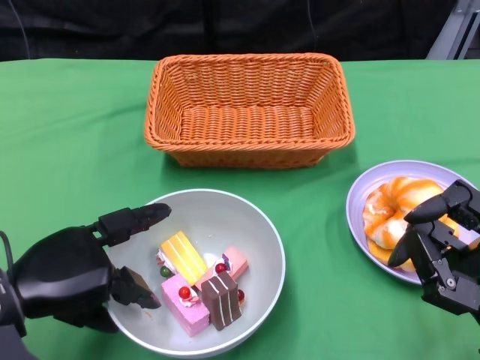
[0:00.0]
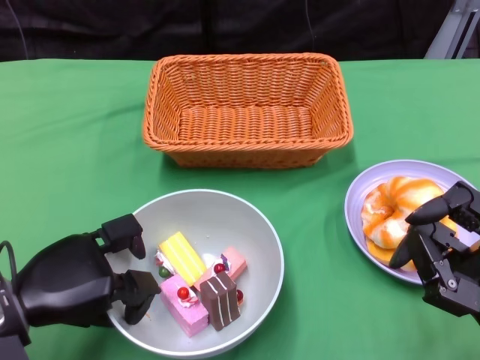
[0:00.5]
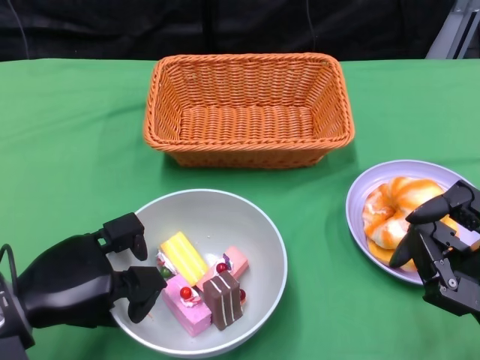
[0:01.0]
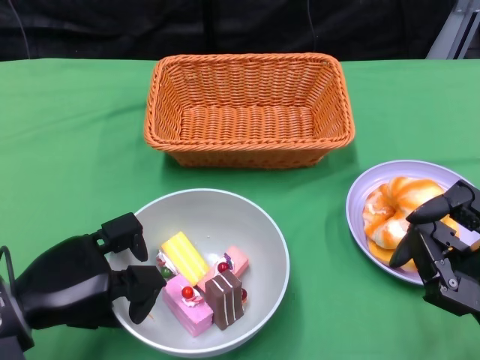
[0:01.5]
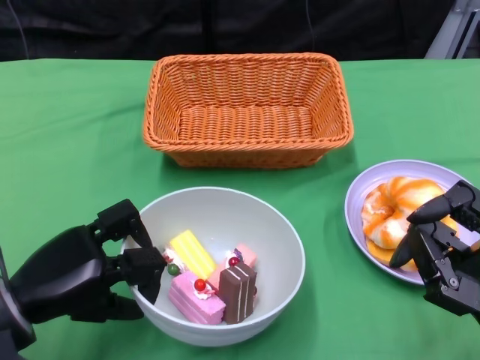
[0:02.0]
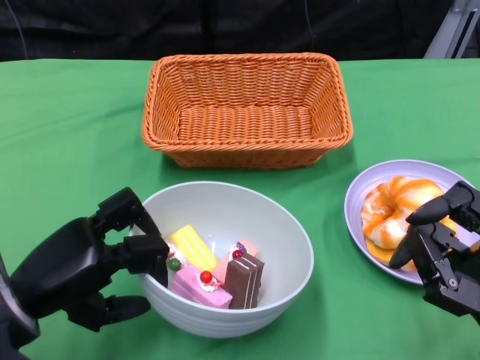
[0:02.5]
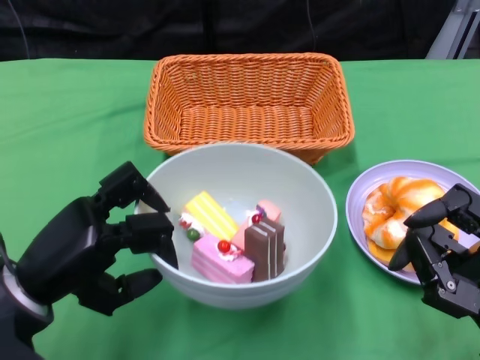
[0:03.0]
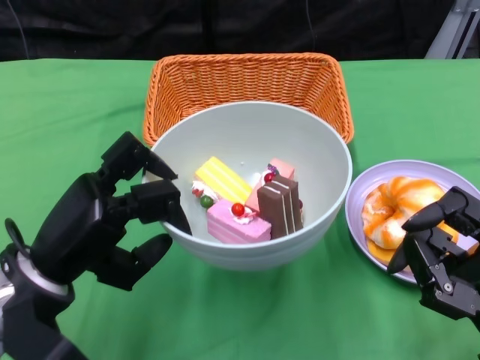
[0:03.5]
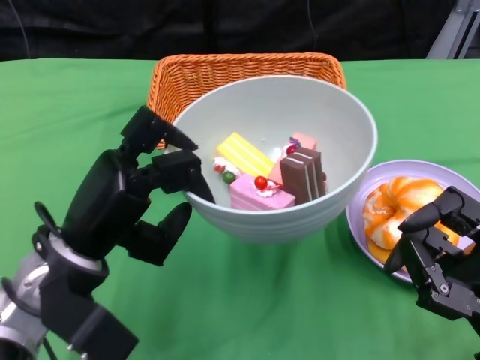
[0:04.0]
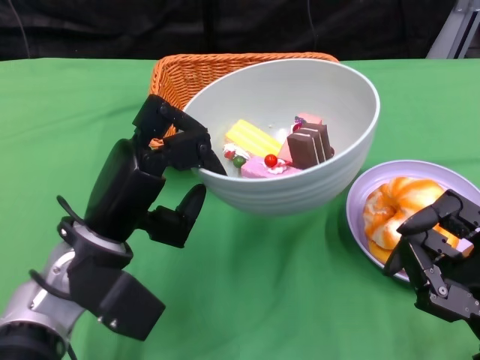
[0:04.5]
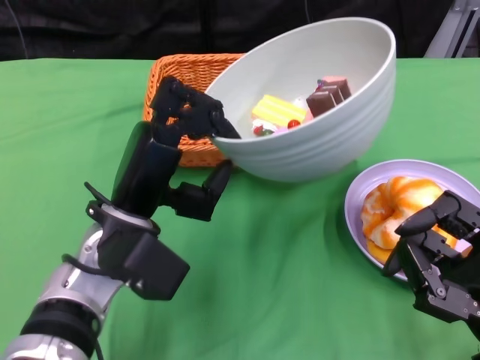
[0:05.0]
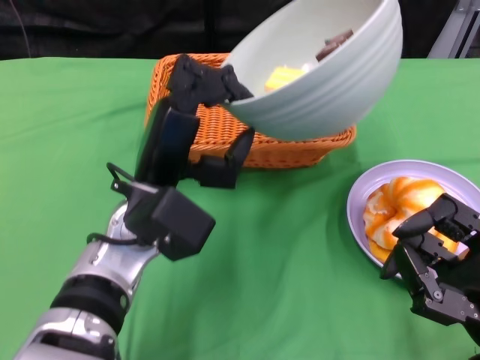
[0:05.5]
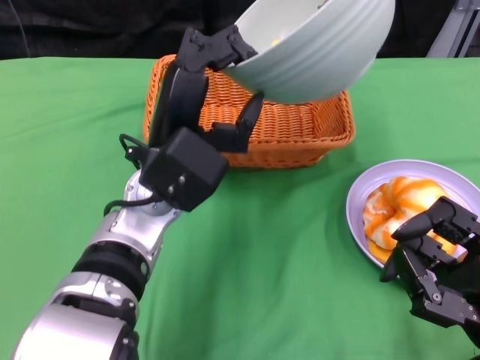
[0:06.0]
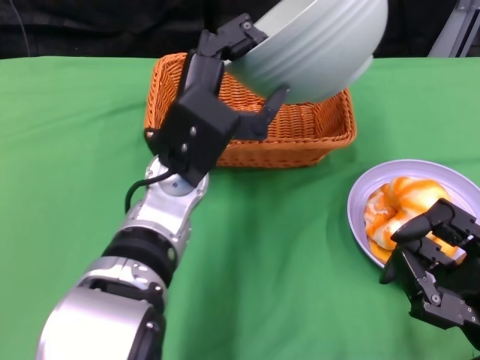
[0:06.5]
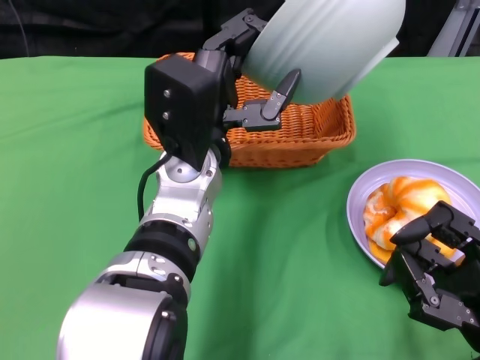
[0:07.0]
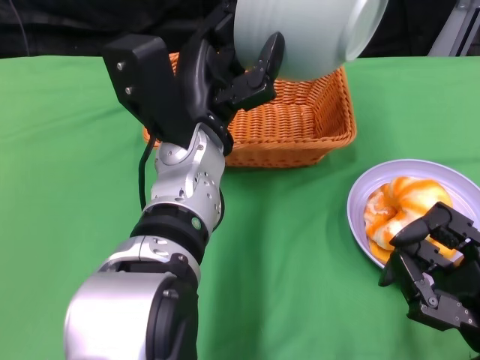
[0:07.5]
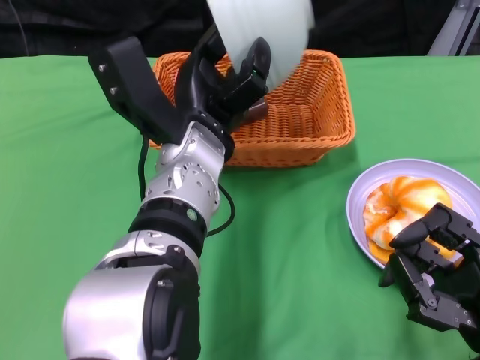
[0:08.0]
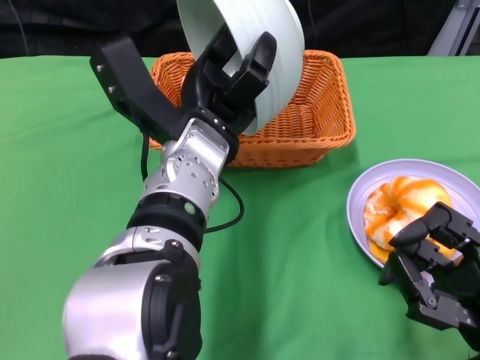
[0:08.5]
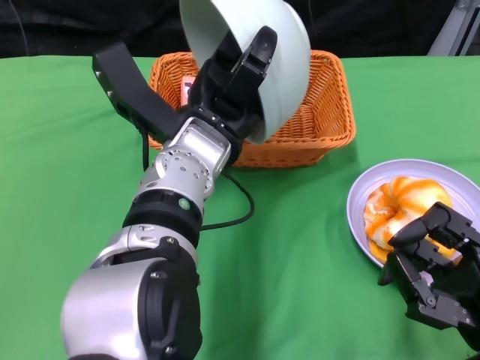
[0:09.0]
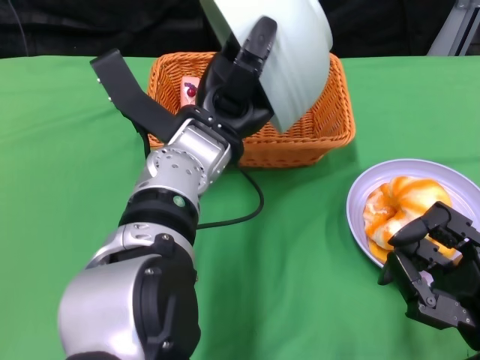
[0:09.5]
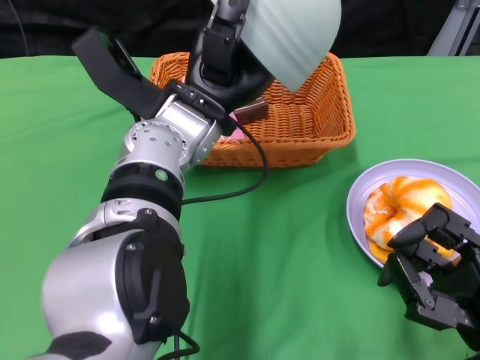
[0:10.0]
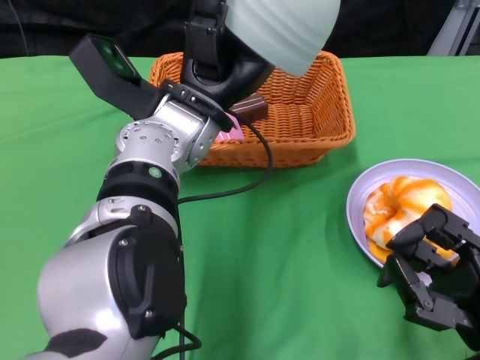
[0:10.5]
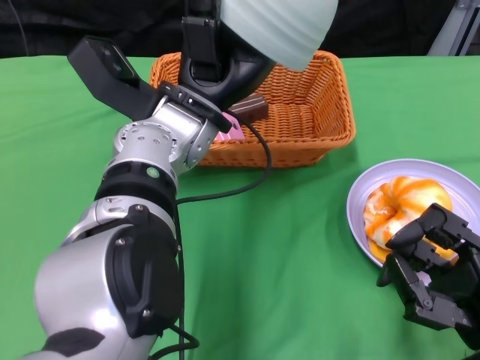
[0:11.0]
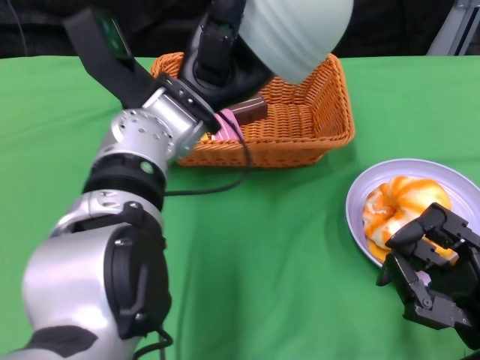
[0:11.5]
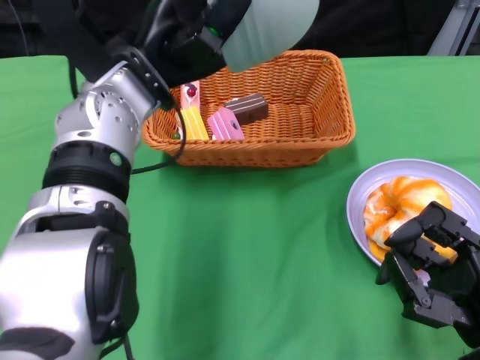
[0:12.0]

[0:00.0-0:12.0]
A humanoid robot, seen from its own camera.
Step, 0:01.0 to 0:11.5: Pour the cake into the basket with the left gripper.
0:00.0 to 0:02.0: The hands stay close to where they were, moving slightly.
0:02.0 to 0:04.0: The left hand shifts about 5 cm to the right.
0:04.0 to 0:06.0: The left hand goes about 10 cm to the right and forward.
0:10.0 to 0:12.0: The left hand moves to the left, roughly 5 cm.

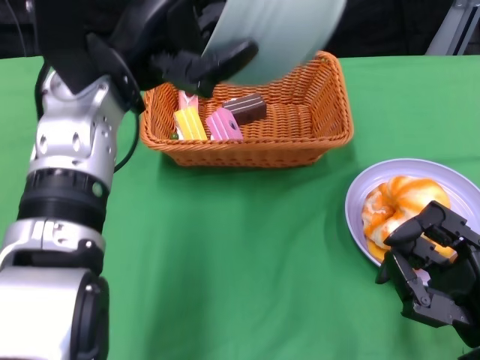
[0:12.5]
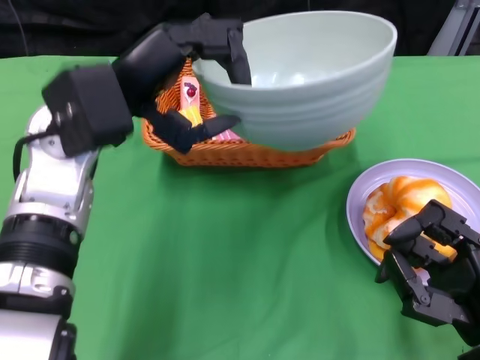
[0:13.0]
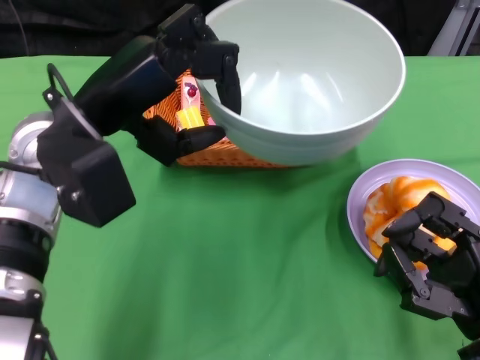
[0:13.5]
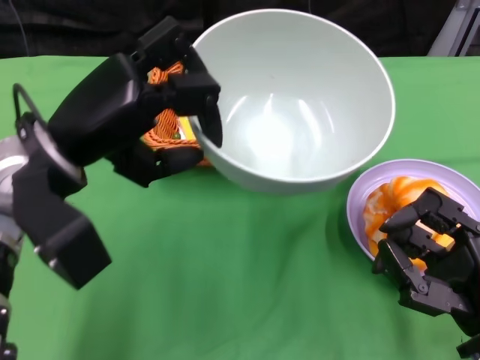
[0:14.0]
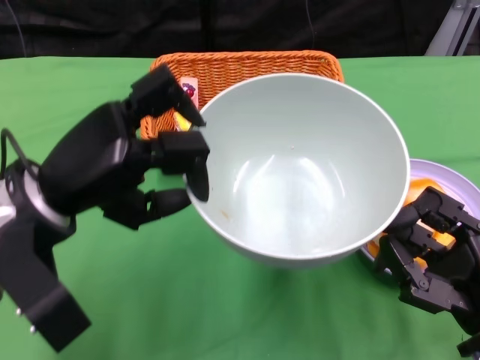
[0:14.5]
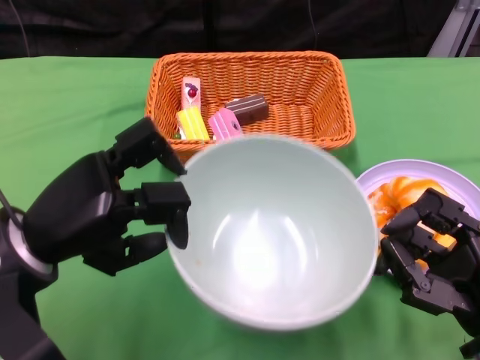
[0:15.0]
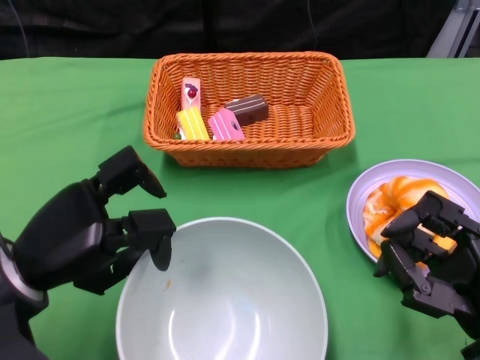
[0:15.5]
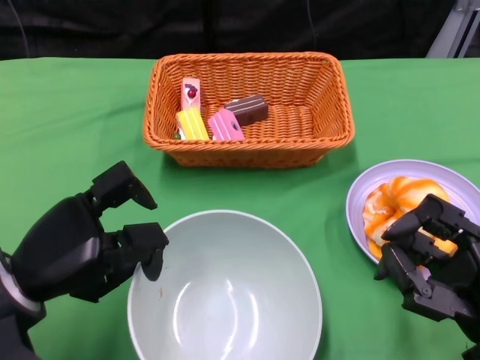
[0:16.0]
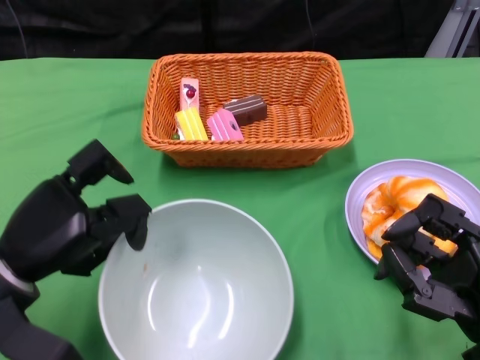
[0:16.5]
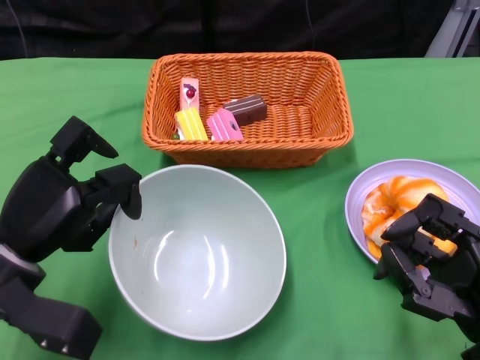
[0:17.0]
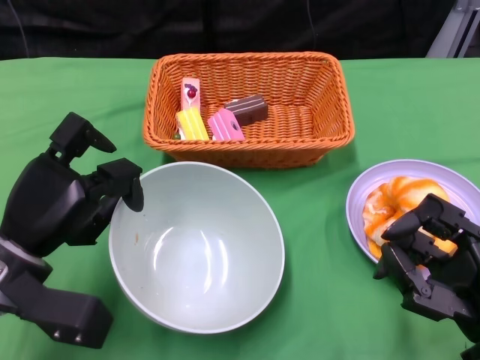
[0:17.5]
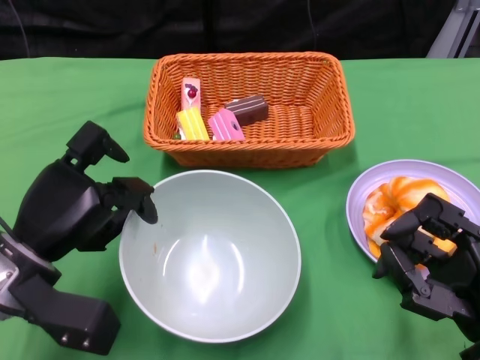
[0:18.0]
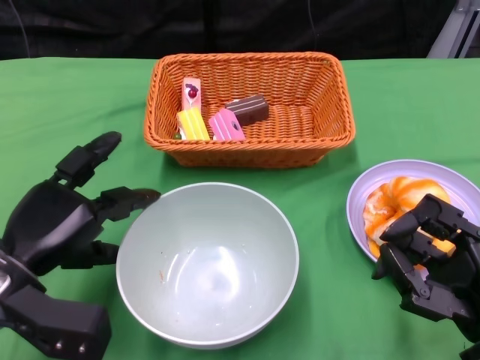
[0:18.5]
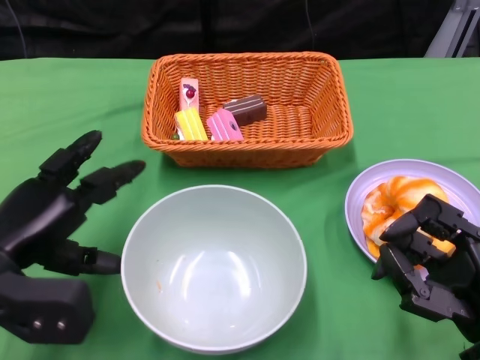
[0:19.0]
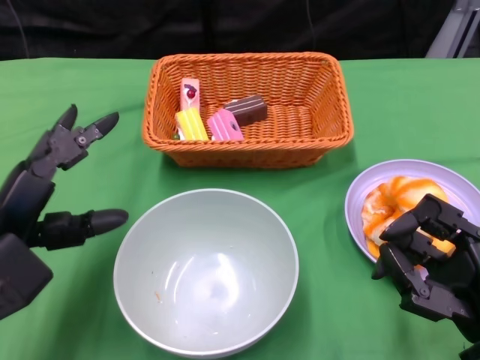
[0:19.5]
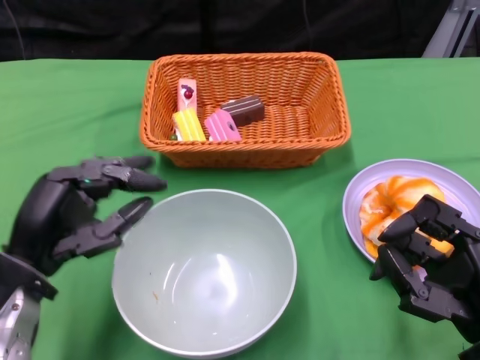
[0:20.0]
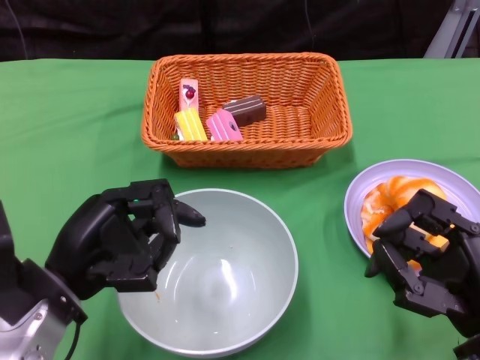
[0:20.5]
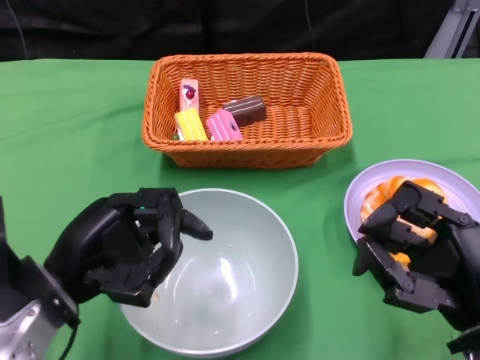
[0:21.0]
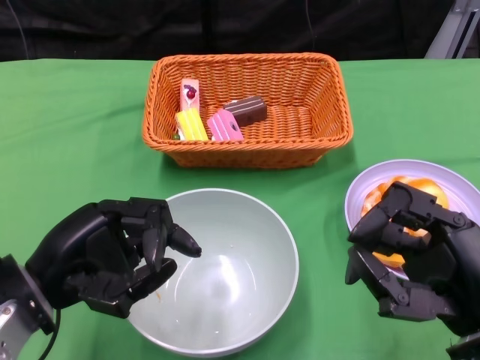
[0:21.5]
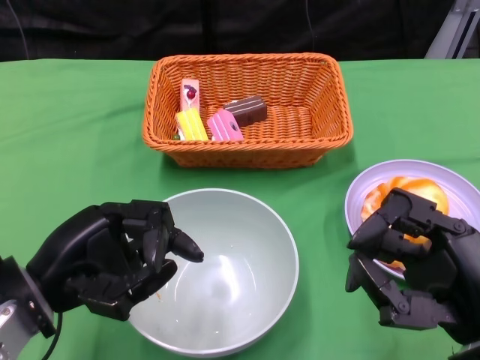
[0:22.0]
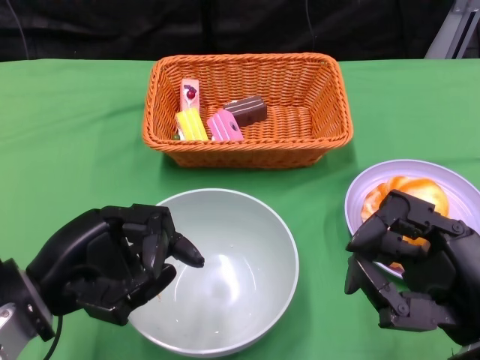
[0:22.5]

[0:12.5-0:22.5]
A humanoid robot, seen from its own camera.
Step, 0:12.5 to 0:18.0: Place the bowl on the table with the left gripper.
0:12.5 to 0:14.5: The left hand travels backward, to the left and downward by roughly 10 cm.
0:14.5 to 0:16.5: The left hand is displaced downward by approximately 10 cm.
0:18.5 to 0:20.5: The left hand shifts by roughly 5 cm.
0:20.5 to 0:22.5: The hands stay close to where they were, moving slightly.

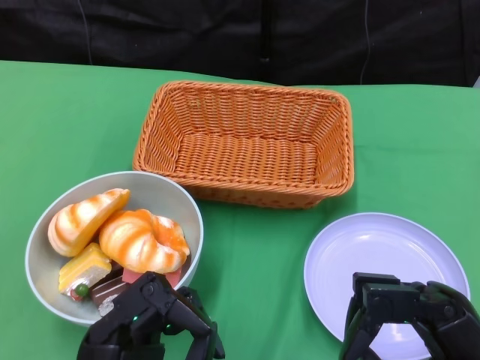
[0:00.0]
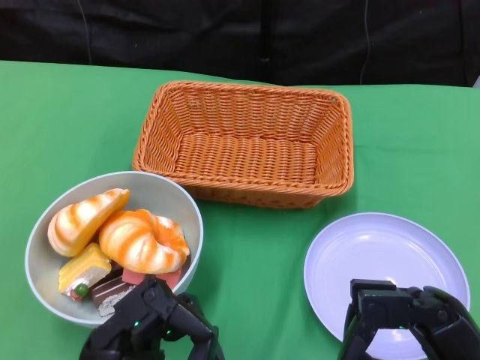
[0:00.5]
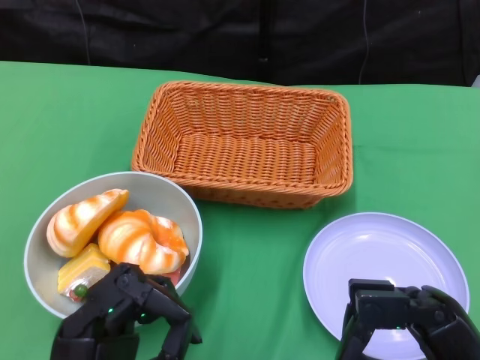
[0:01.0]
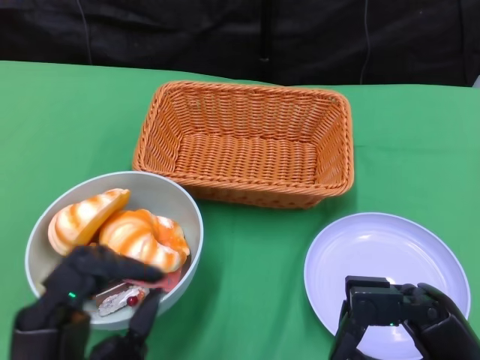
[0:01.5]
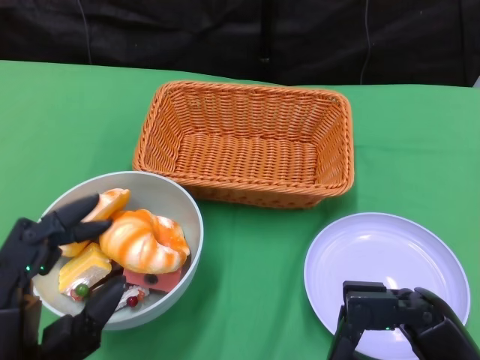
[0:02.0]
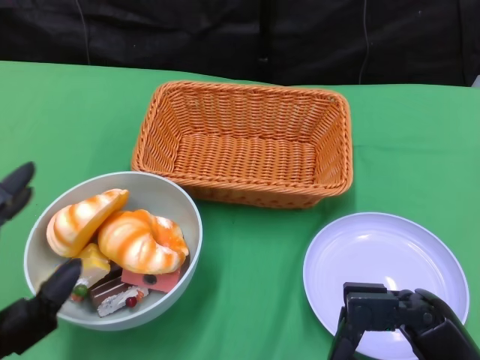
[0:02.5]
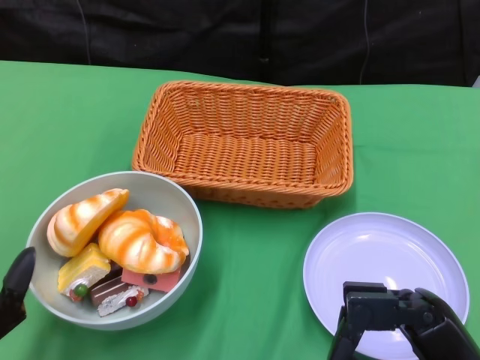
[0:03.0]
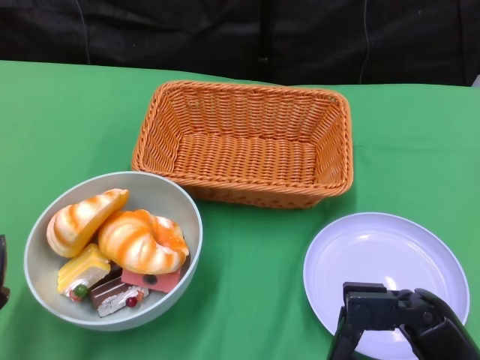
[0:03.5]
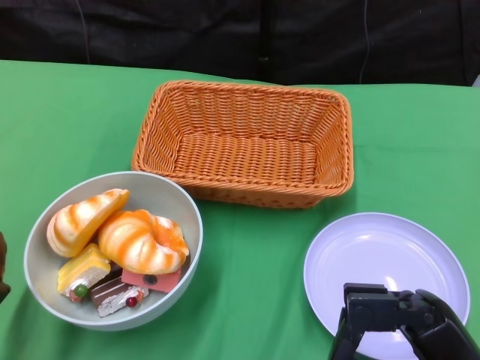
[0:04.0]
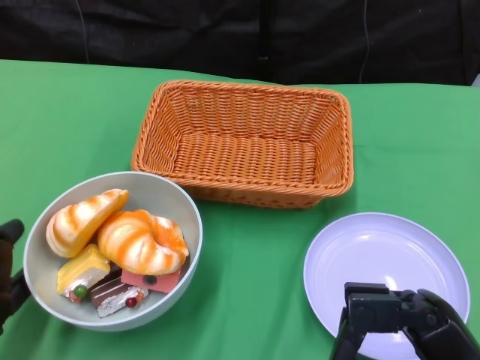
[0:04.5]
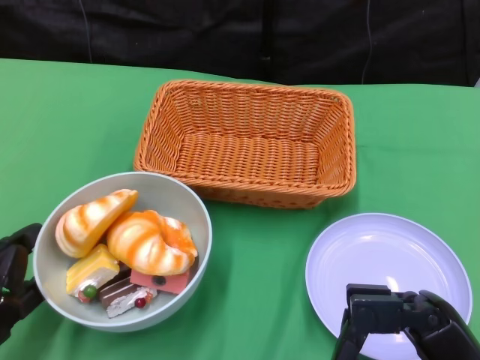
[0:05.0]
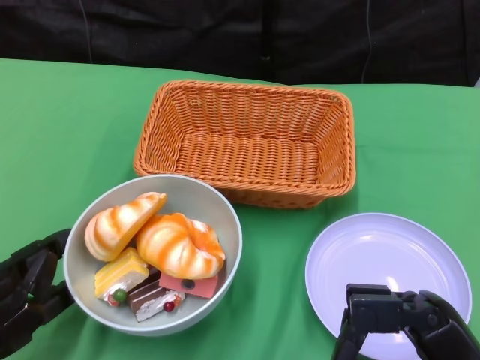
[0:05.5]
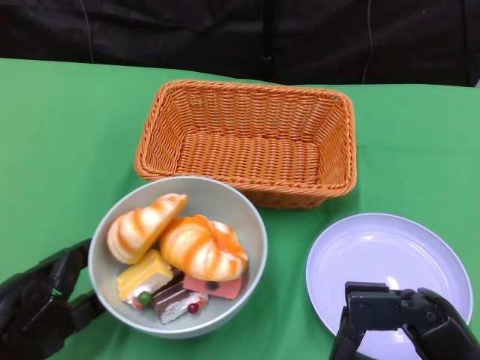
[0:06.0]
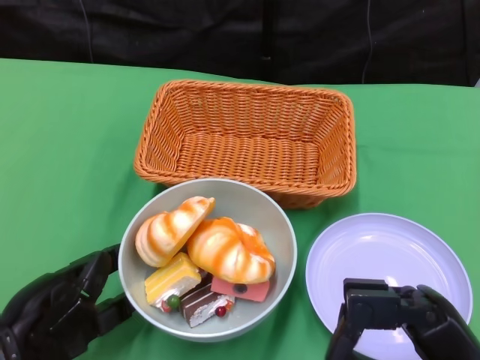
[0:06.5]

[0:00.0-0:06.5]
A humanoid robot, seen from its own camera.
0:02.0 to 0:04.5: The left hand travels to the left by approximately 10 cm.
0:04.5 to 0:06.5: The left hand goes about 5 cm to the right.
